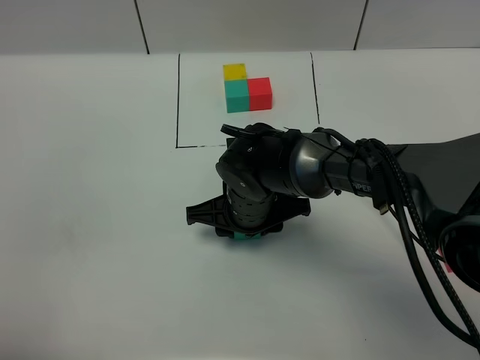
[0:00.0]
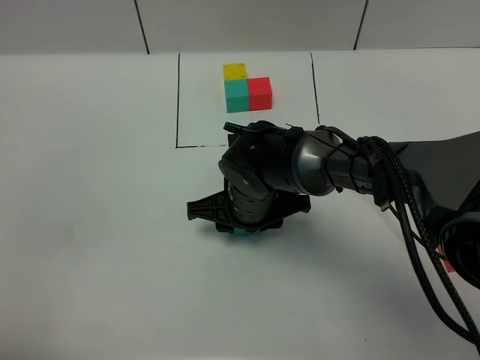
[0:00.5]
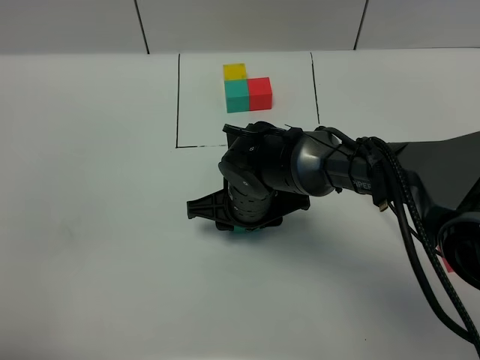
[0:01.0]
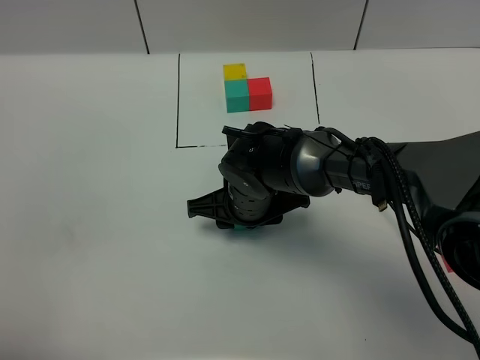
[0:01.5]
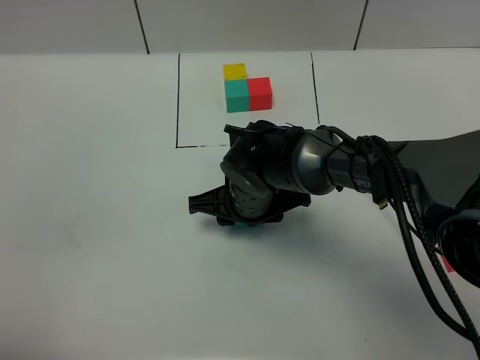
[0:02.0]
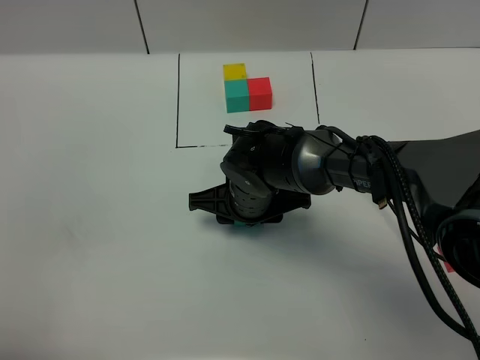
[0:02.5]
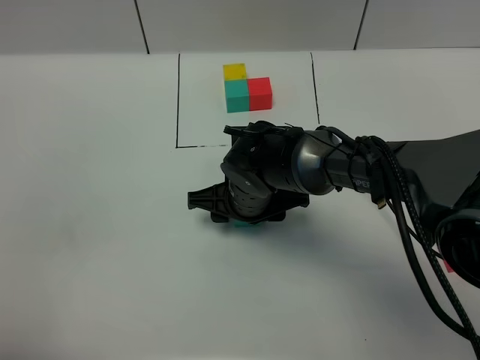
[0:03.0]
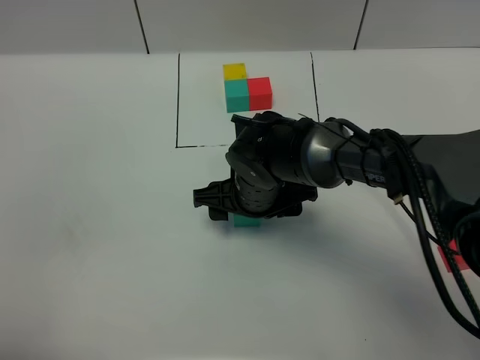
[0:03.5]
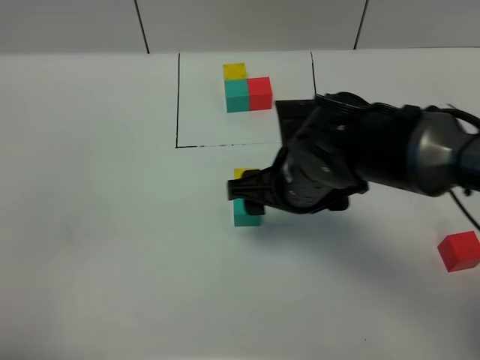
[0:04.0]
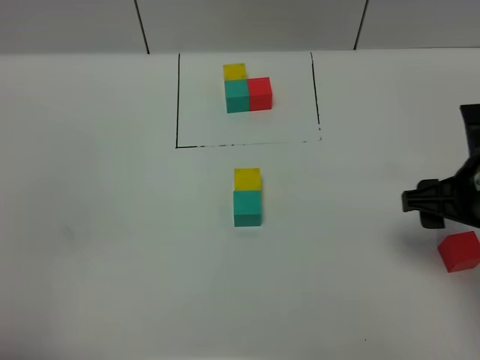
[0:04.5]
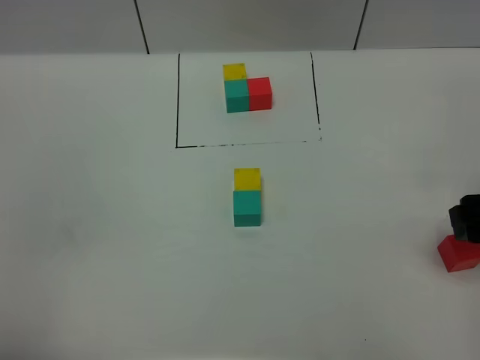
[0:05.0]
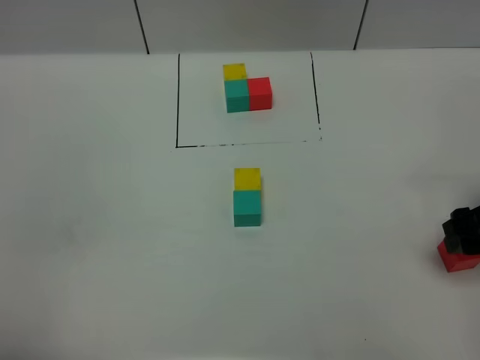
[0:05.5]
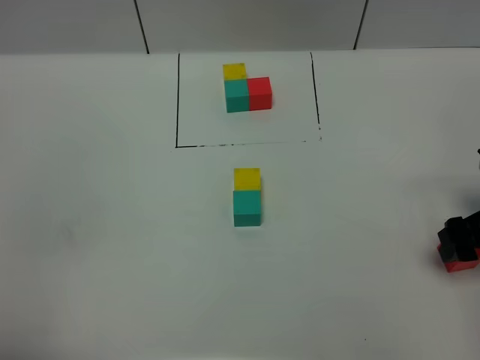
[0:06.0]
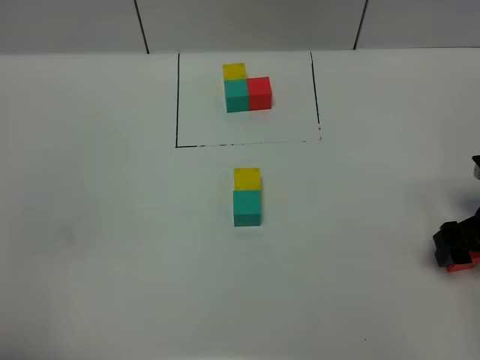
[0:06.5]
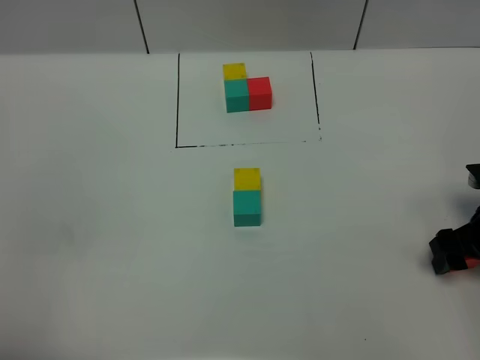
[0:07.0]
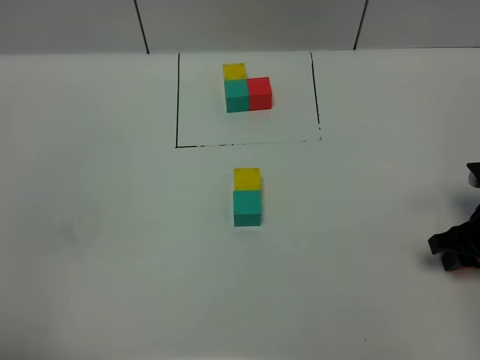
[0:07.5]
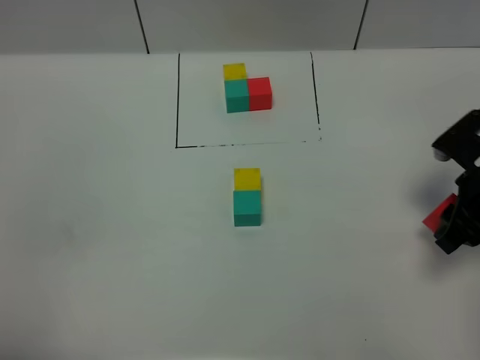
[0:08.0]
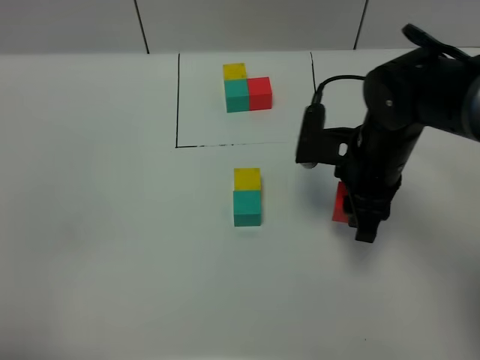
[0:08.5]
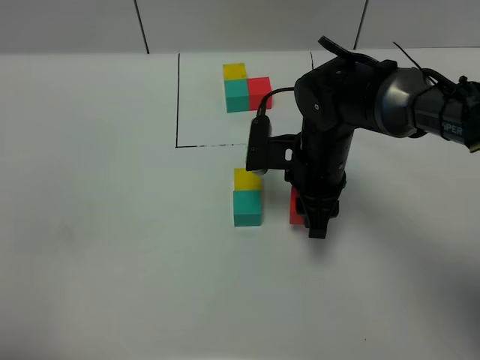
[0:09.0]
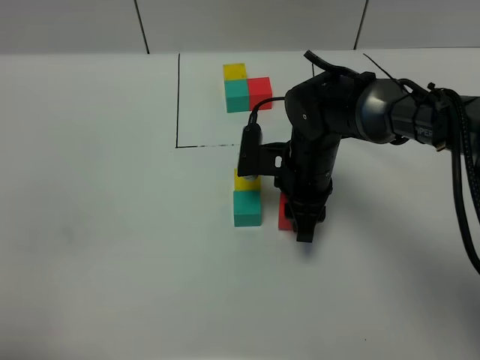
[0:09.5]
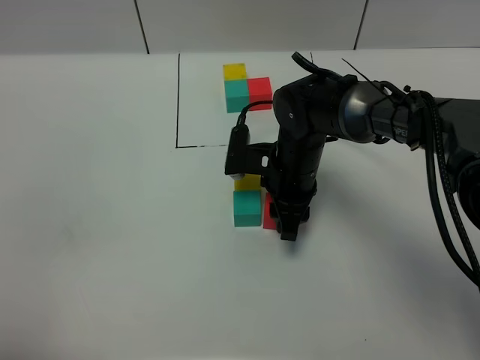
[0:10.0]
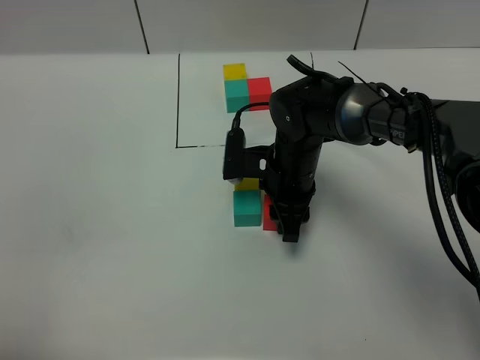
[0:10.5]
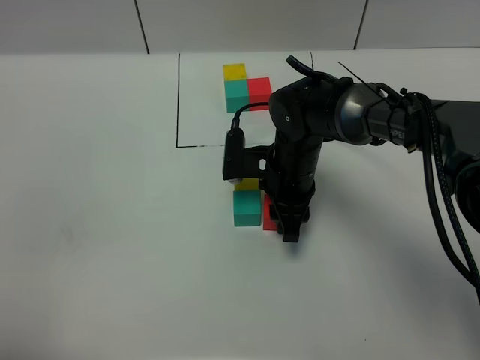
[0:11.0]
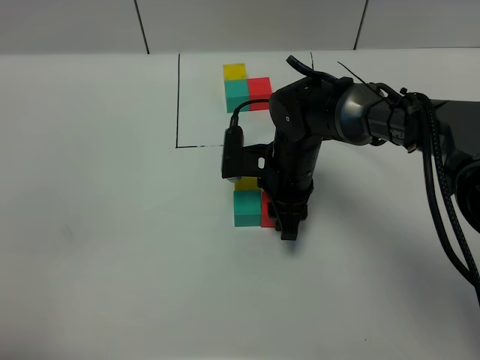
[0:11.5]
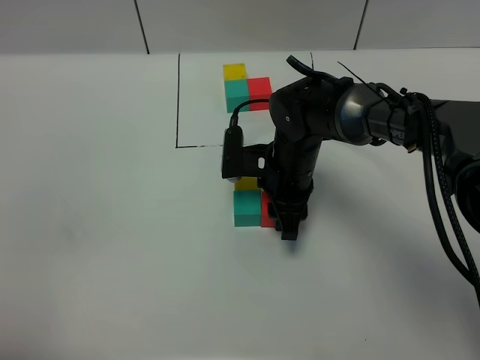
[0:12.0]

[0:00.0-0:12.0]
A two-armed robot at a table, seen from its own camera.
Task of the whole recording: According to the building block template in front, assemble the scattered blocks together.
Step, 0:00.0 to 0:03.5: Put the green build block on the behind of the yellow build block.
0:00.0 to 0:02.0: Both grippers stay put.
0:02.0 to 0:04.0: The right gripper goes about 10 cm upward and to the right, and opens its fingers.
0:04.0 to 0:06.0: The right gripper goes approximately 25 cm to the right.
0:06.0 to 0:08.0: The right gripper closes.
0:08.0 to 0:10.0: The right gripper goes roughly 25 cm to the left and forward.
0:10.0 to 0:12.0: Neither gripper changes place.

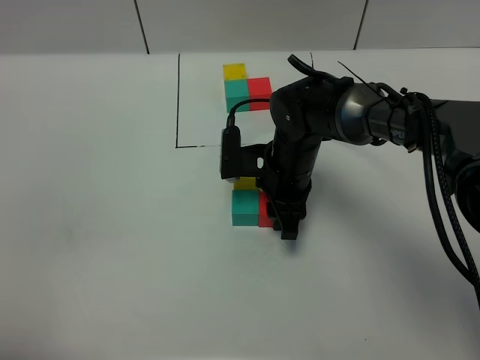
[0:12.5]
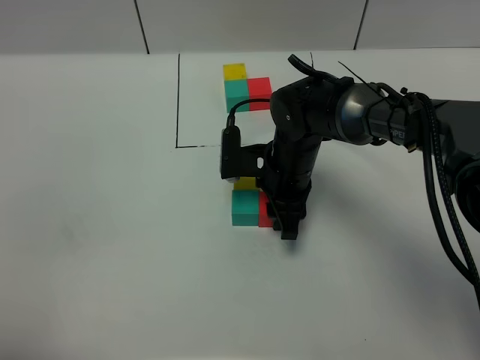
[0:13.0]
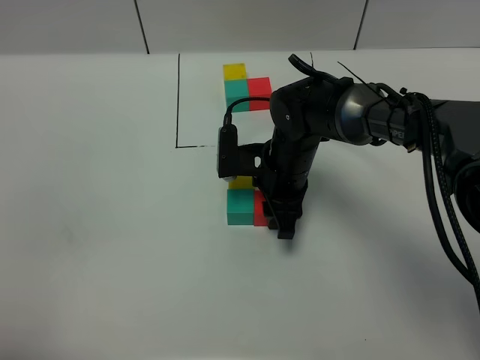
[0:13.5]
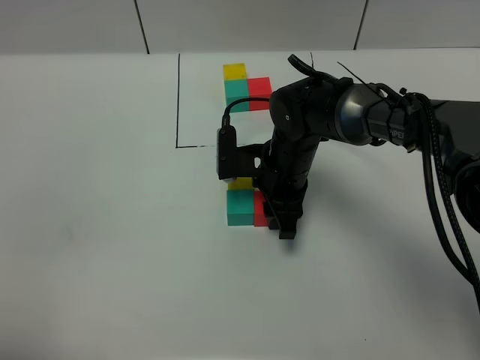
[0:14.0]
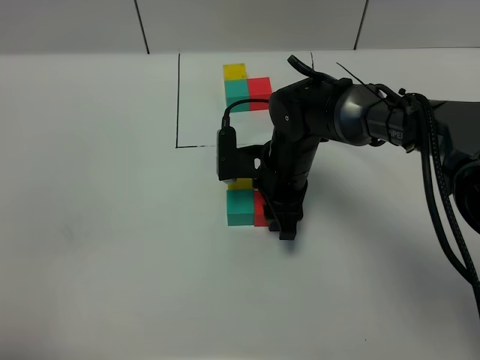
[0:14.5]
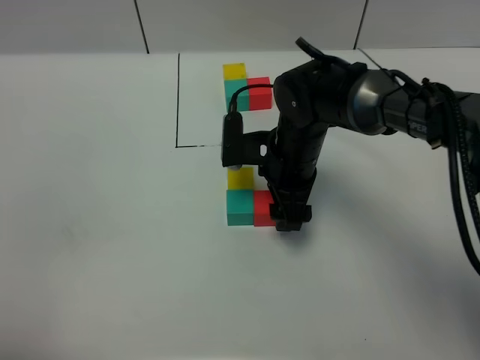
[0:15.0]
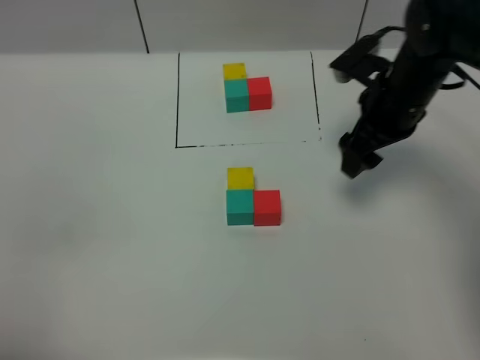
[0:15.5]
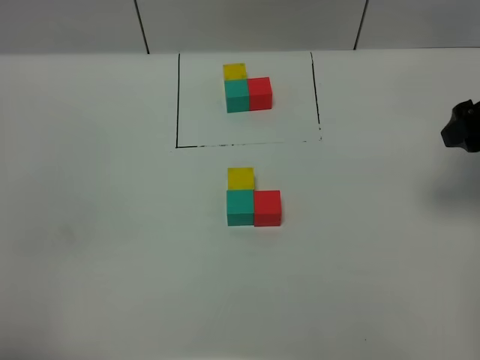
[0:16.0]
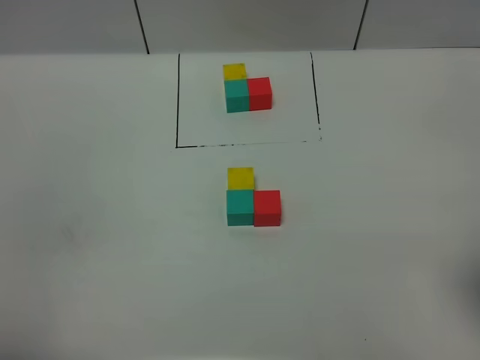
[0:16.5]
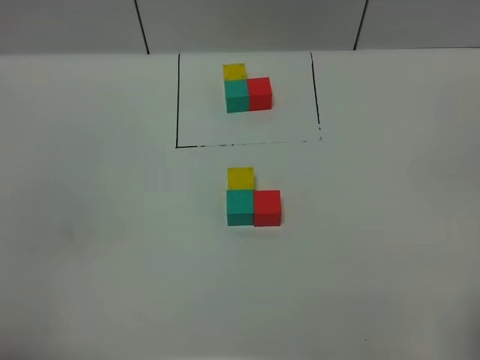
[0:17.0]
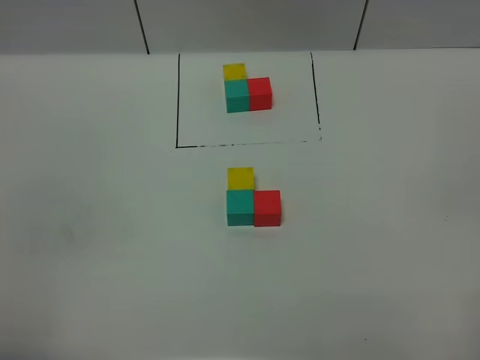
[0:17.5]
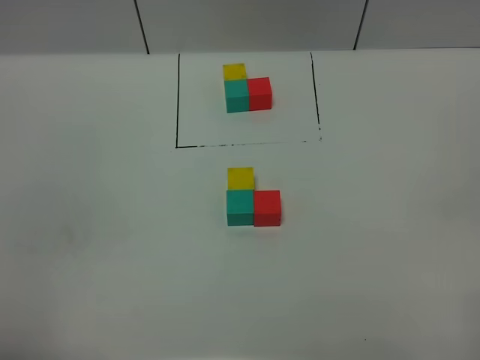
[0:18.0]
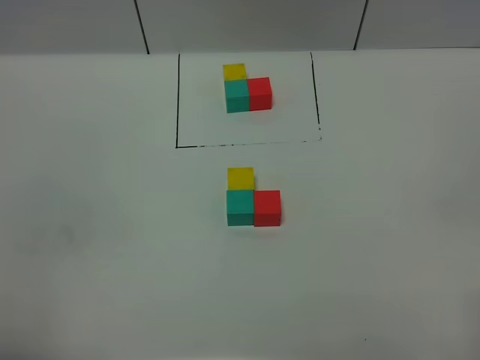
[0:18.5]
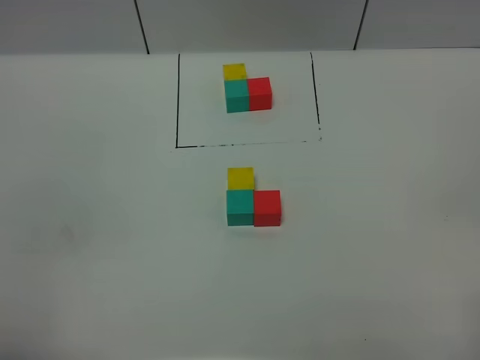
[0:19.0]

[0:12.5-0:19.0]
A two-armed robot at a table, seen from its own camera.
Task of the whole recording: According to the building block template in front, assemble the scattered blocks together.
Step, 0:12.5 to 0:14.5: Put the red build block on the right of the green build block.
0:12.5 to 0:14.5: The two grippers keep their place.
0:14.5 to 0:17.0: The right gripper goes about 40 cm backward, to the right and upward, and opens up.
